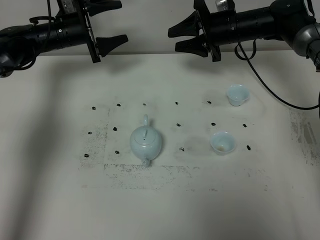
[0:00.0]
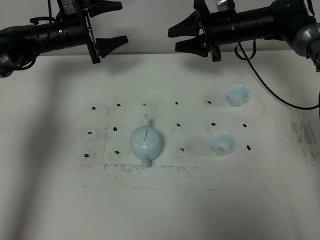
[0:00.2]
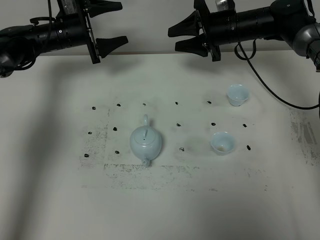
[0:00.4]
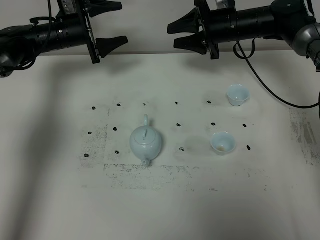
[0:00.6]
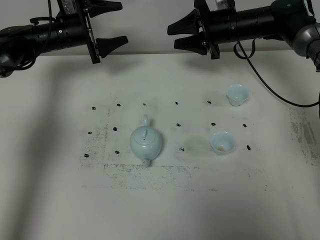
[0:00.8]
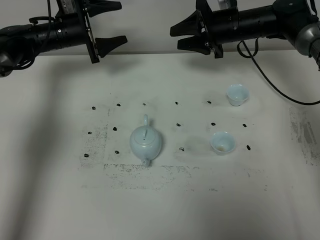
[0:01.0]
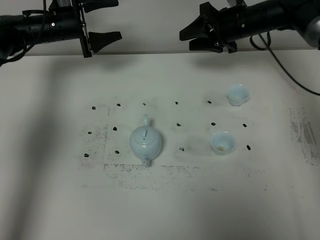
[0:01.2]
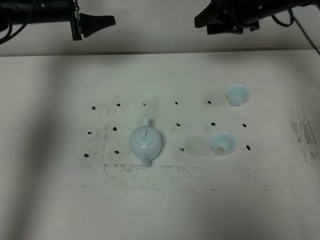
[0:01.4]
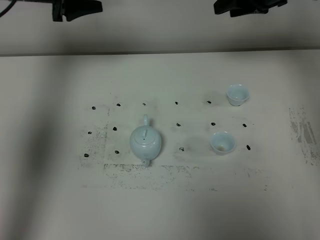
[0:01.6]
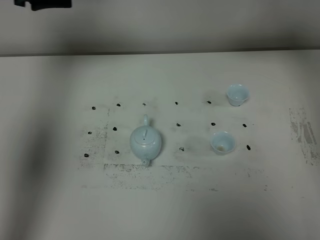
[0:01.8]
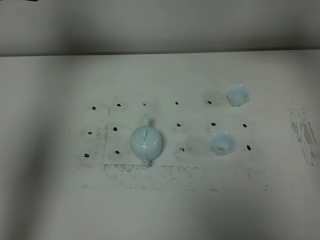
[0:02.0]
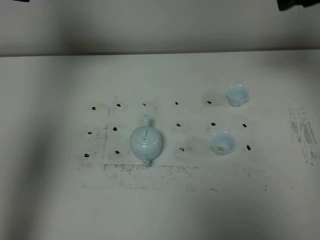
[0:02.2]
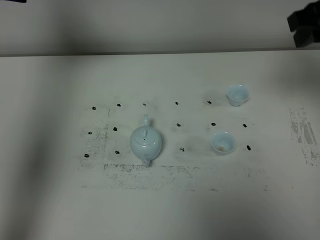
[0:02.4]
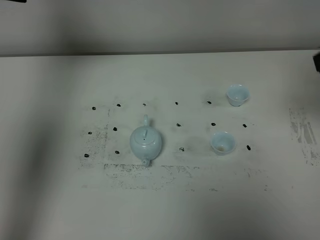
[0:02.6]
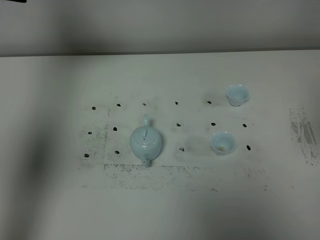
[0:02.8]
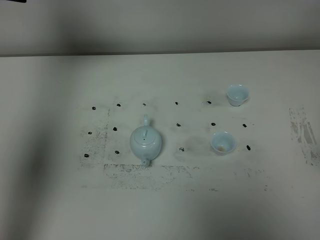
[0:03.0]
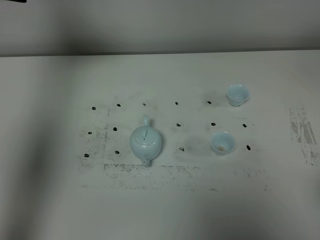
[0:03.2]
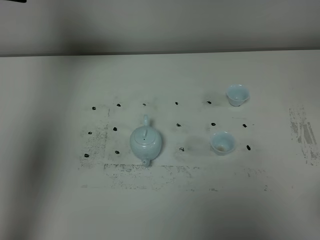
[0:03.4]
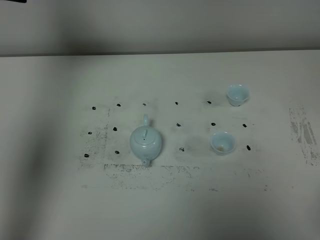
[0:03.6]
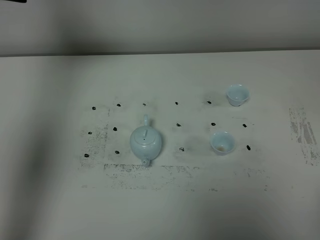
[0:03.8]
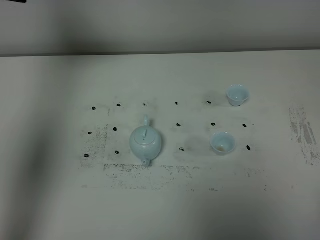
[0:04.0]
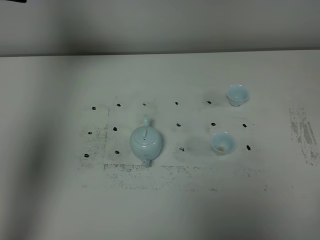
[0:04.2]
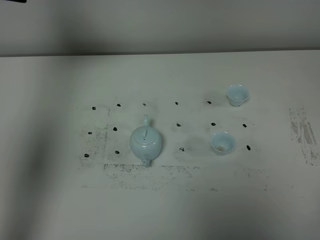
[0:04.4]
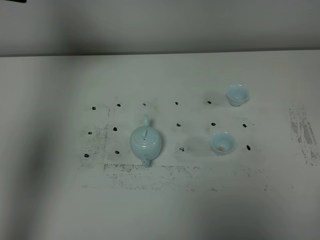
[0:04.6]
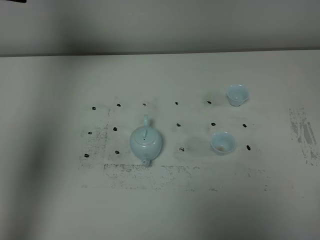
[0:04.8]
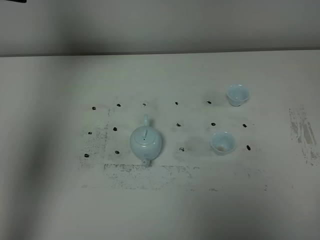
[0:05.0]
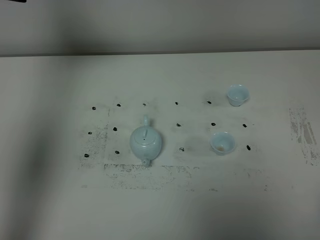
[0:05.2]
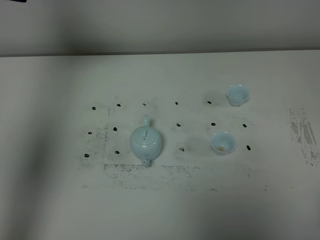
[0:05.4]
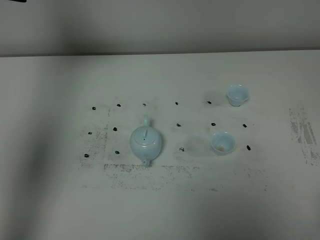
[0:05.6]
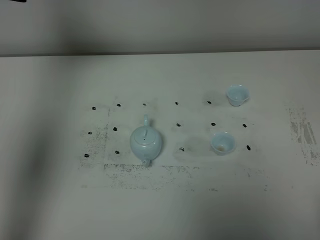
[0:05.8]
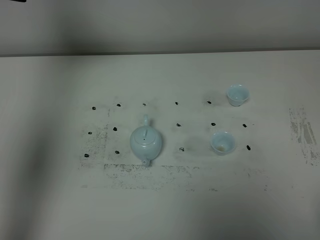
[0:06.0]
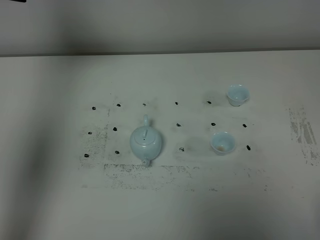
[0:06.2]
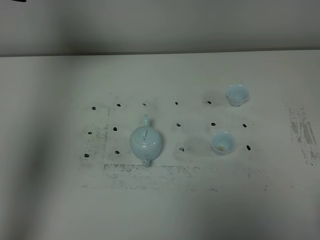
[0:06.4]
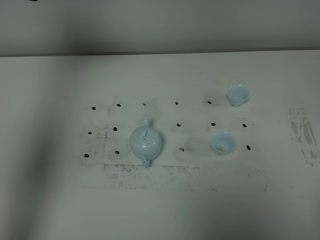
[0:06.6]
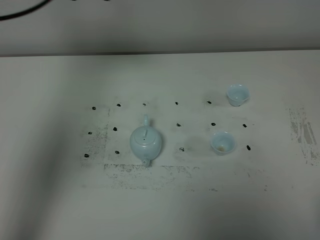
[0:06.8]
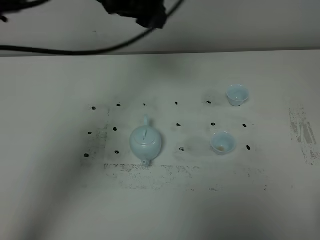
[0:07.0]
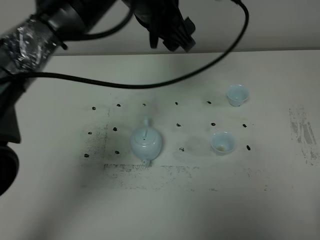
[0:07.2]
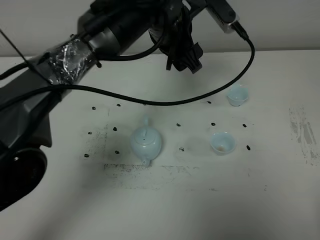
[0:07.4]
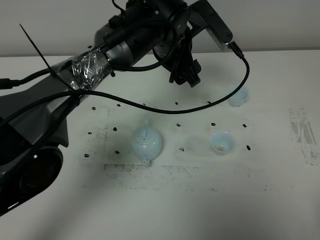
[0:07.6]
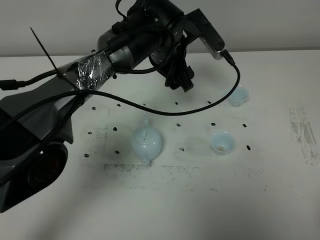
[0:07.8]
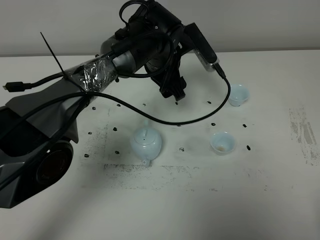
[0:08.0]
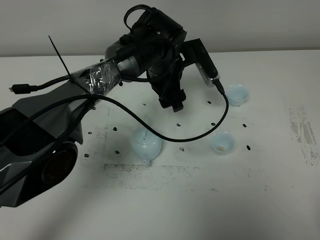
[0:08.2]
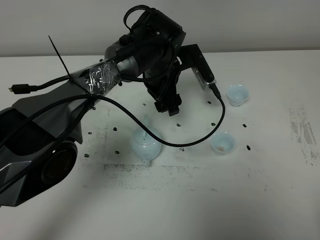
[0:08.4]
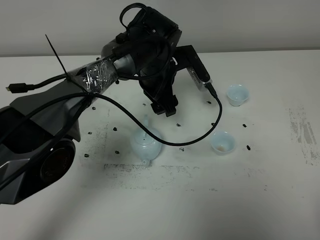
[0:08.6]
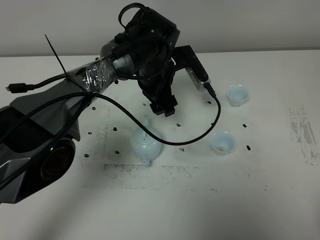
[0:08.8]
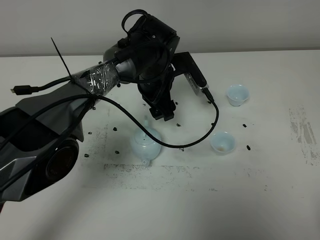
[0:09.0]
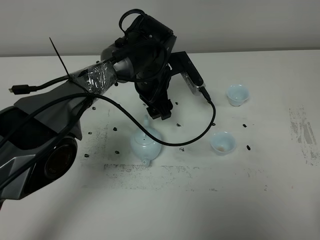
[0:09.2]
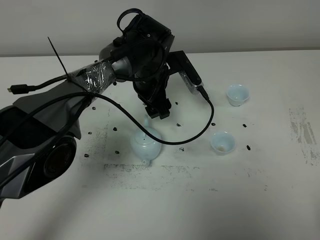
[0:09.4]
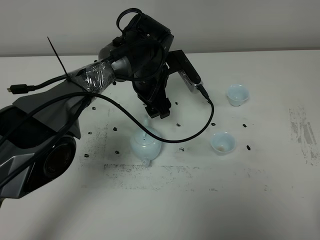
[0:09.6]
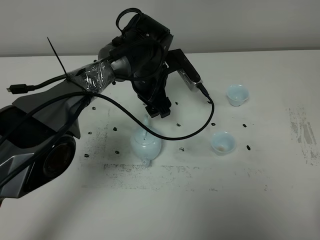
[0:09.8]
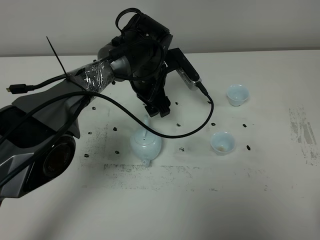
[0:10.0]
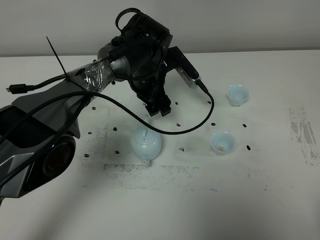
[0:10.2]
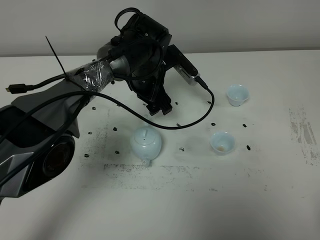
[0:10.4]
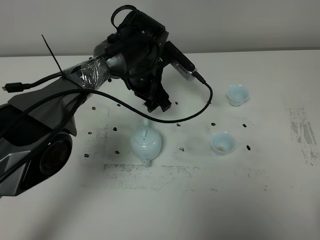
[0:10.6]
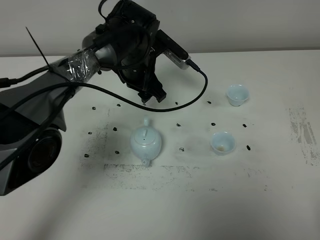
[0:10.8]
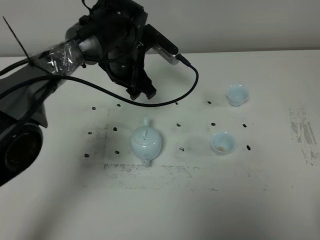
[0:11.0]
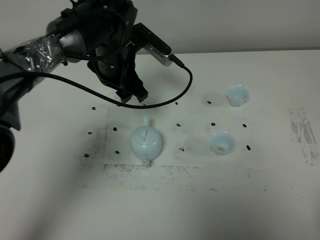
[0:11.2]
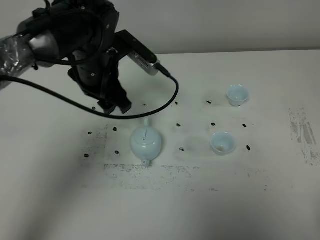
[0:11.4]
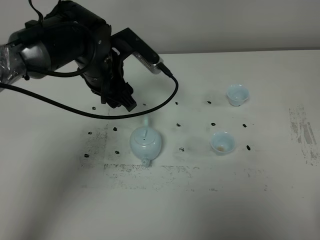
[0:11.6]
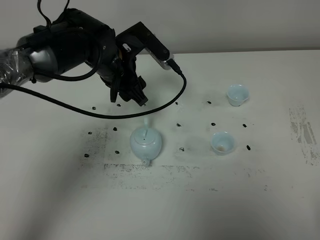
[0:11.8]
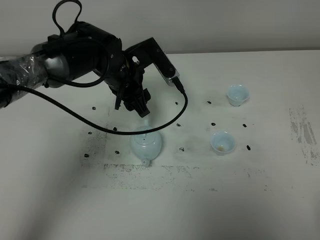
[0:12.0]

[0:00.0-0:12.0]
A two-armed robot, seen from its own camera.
Task of the whole recording: grasp the blue porcelain teapot and pour the tea into the two blue porcelain teacups one by one, put the blue porcelain teapot back in its original place.
0:00.0 to 0:01.6: The left gripper shifts some 15 cm upward, while the right gripper moves upward and to the right, some 15 cm.
0:01.6 to 0:03.0: The left gripper shifts roughly 5 cm upward; the right gripper travels backward by roughly 35 cm.
0:06.0 to 0:07.6: The left gripper shifts roughly 30 cm to the right and downward.
0:07.6 to 0:09.0: The left gripper shifts roughly 10 cm downward.
0:09.0 to 0:10.4: The grippers stay close to where they were, moving slightly.
0:10.4 to 0:12.0: The left gripper goes roughly 5 cm to the left.

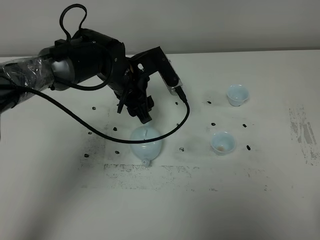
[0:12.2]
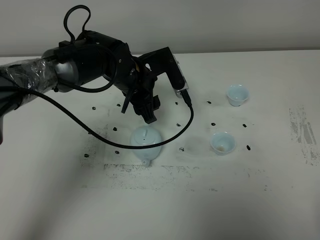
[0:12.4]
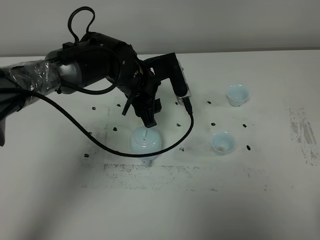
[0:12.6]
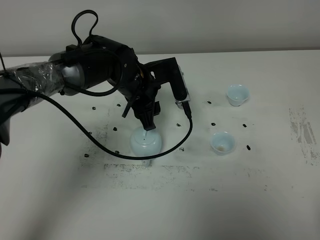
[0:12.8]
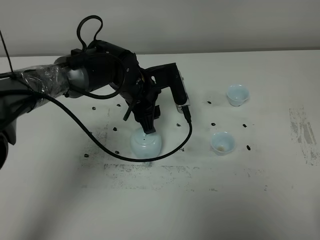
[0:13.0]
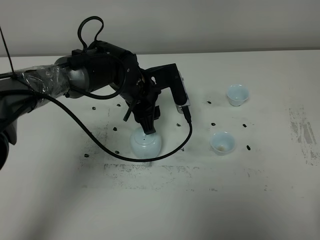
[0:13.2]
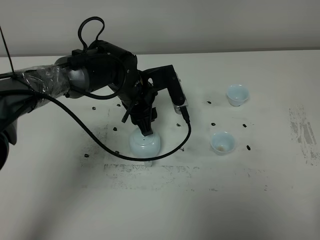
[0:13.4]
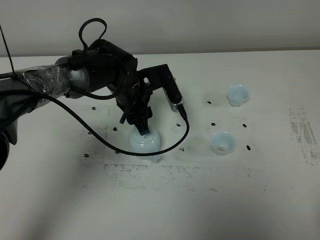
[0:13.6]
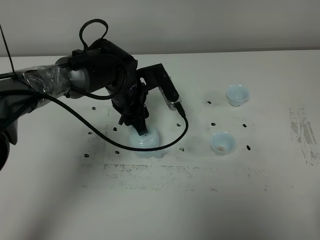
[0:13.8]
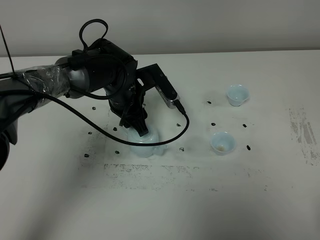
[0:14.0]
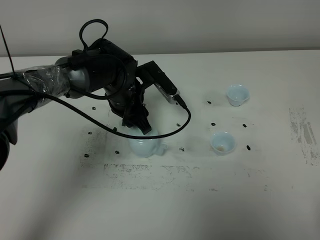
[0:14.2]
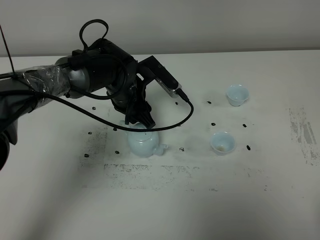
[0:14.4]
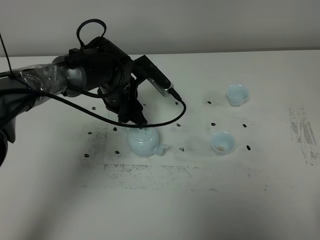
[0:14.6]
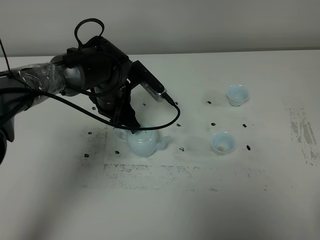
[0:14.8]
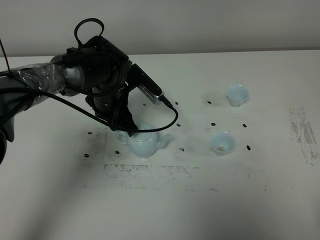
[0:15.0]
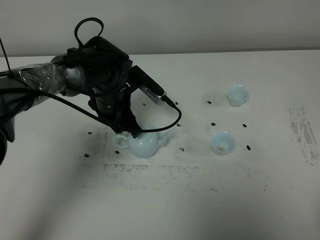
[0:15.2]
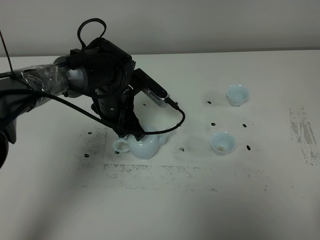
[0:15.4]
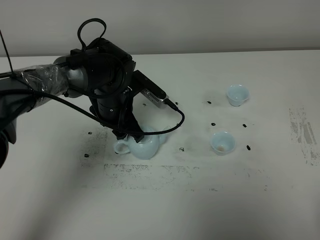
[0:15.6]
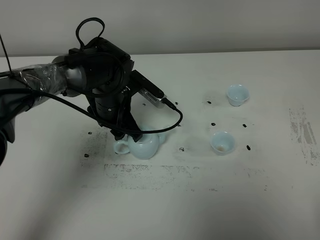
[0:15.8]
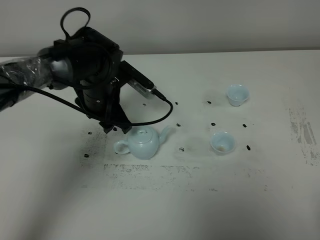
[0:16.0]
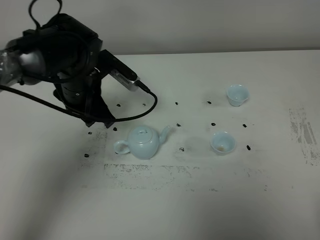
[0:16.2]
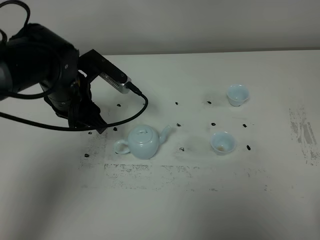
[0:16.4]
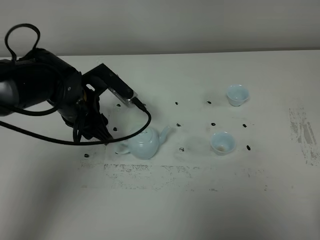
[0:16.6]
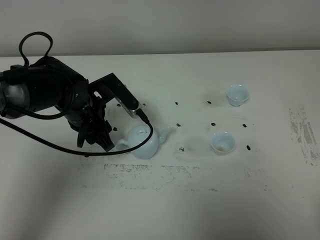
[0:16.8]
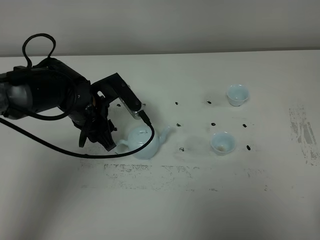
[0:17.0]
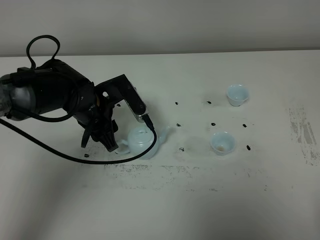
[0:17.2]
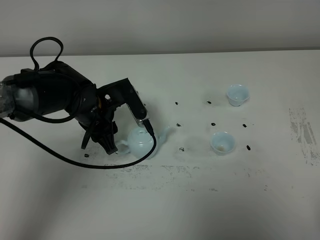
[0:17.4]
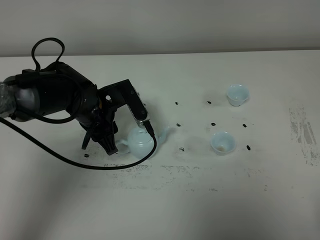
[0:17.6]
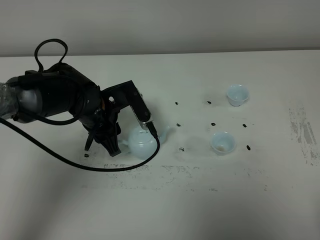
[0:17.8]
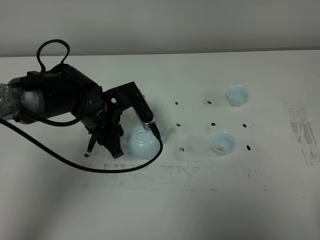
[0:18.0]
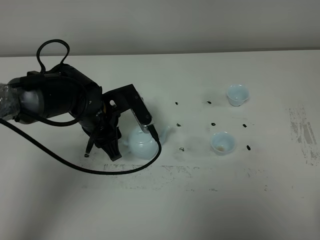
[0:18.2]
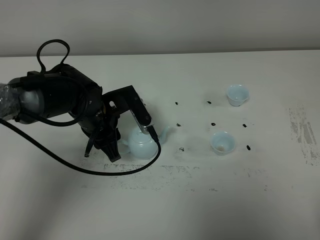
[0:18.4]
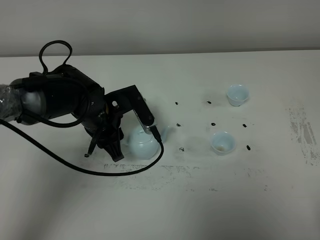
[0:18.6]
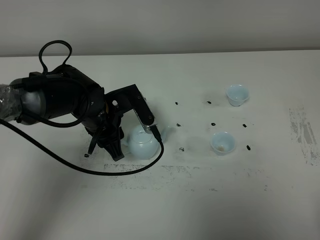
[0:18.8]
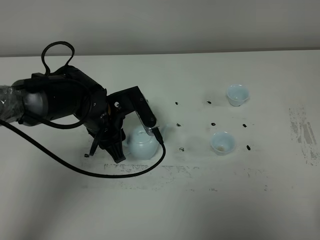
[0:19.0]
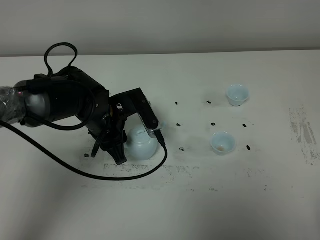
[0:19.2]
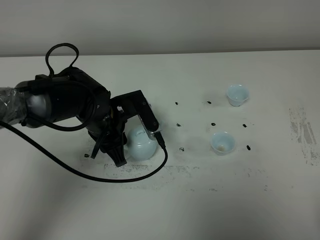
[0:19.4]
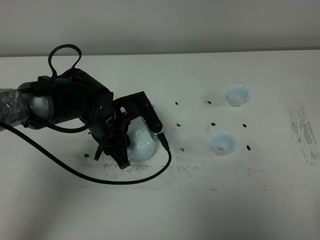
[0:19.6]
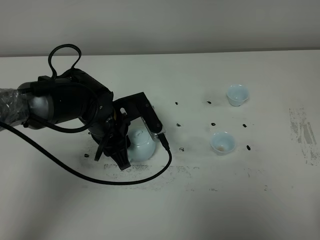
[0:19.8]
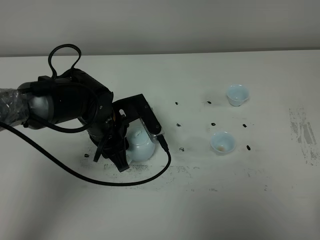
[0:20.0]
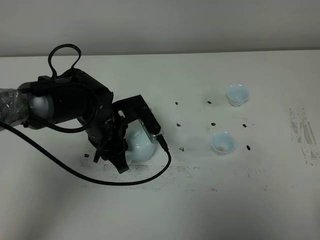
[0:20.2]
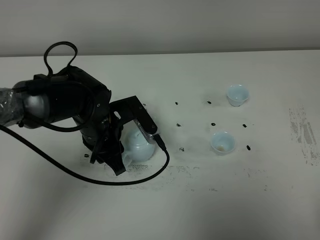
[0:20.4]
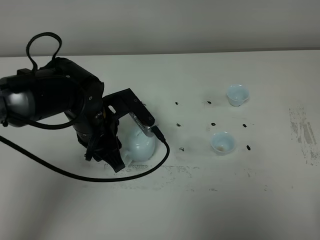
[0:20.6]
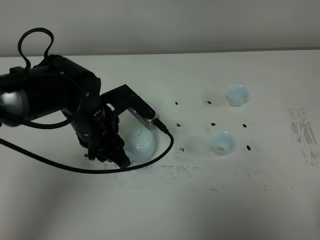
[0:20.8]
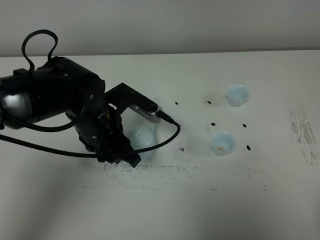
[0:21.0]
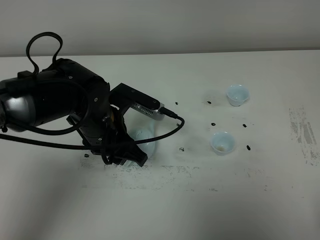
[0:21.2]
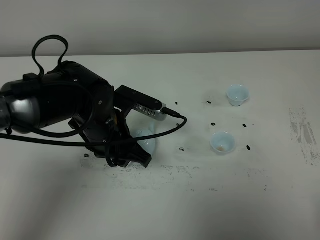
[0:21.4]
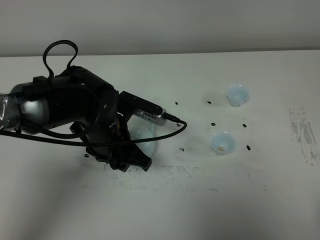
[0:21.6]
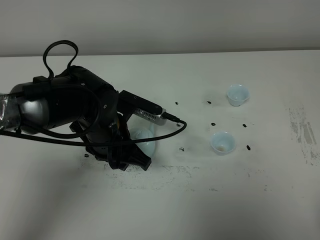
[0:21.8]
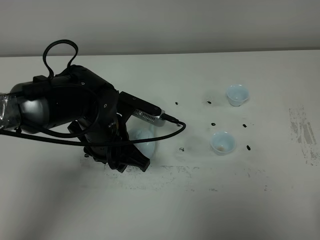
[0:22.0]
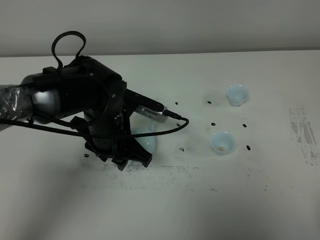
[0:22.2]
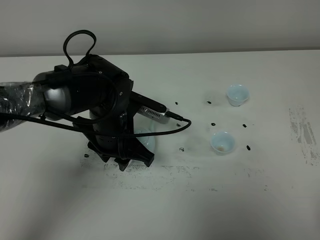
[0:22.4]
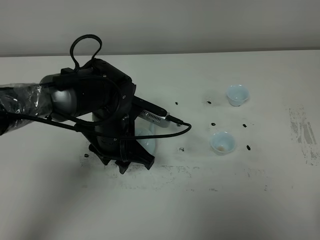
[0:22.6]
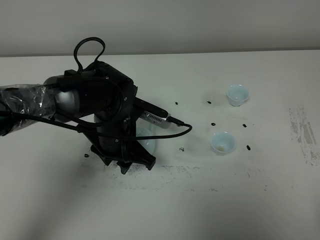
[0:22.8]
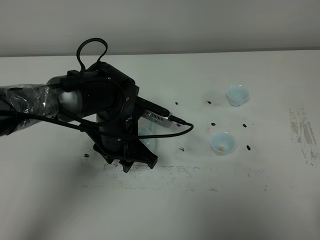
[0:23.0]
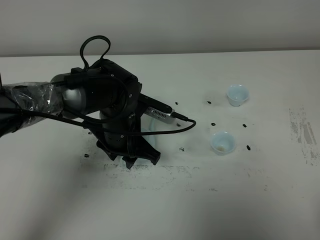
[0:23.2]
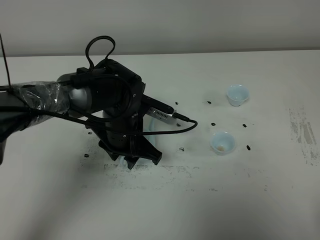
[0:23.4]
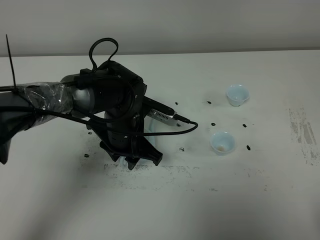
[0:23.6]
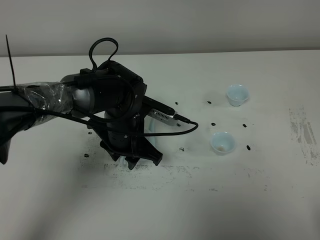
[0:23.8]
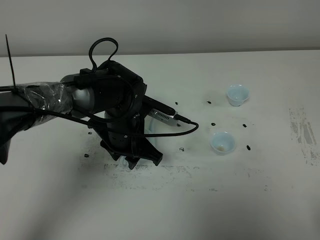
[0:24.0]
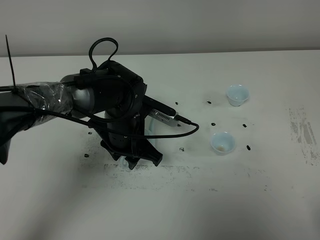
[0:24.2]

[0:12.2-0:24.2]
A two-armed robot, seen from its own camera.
Task of the whole recording: grasp the blue porcelain teapot and pour the tea into the two blue porcelain teacups one by one, put the blue porcelain teapot back in its original place.
0:12.2 to 0:13.8: The grippers make only small movements.
0:15.2 to 0:16.6: The left gripper moves to the left, about 5 cm.
0:16.6 to 0:19.8: The grippers move only a little.
0:19.8 to 0:21.2: The left gripper changes place by some 5 cm.
0:21.2 to 0:22.6: The grippers move only a little.
0:22.6 to 0:24.2: The grippers move only a little.
